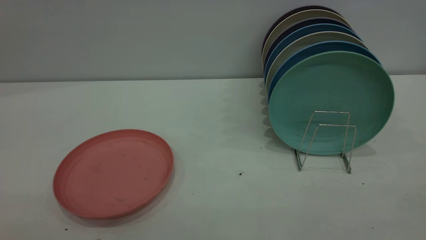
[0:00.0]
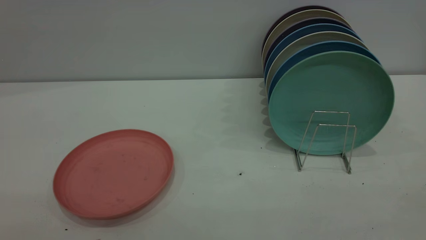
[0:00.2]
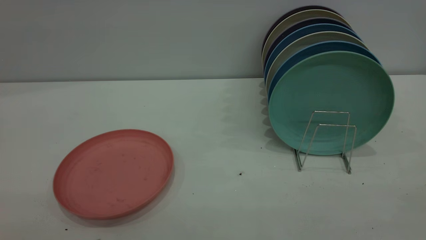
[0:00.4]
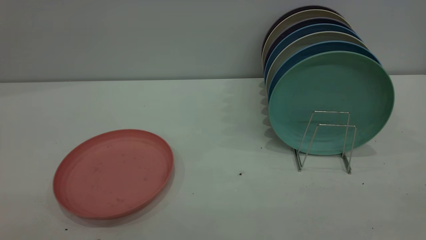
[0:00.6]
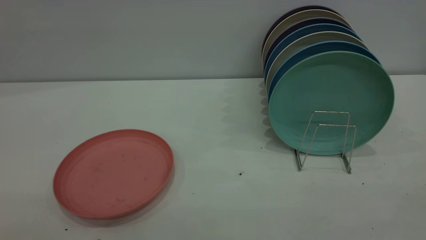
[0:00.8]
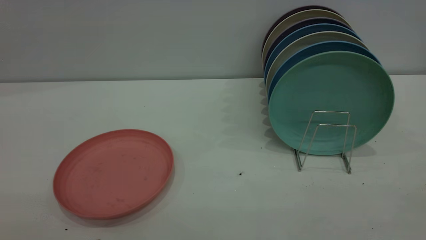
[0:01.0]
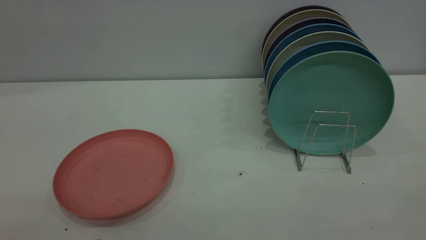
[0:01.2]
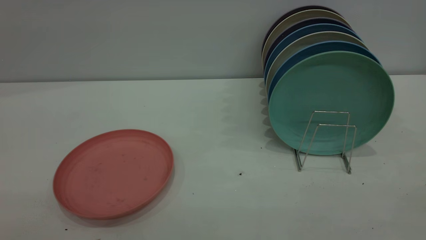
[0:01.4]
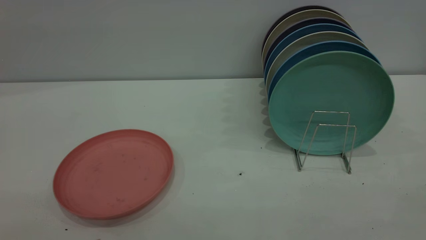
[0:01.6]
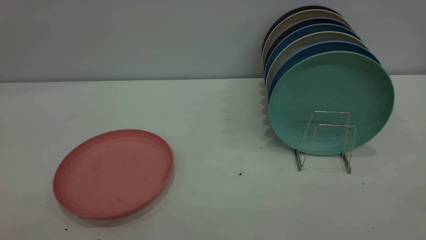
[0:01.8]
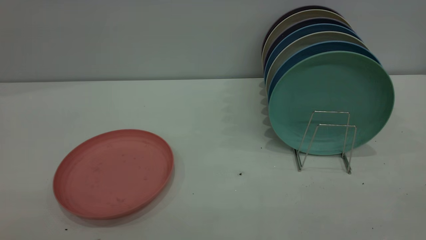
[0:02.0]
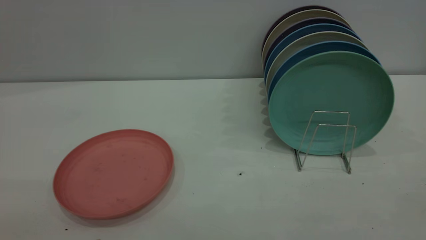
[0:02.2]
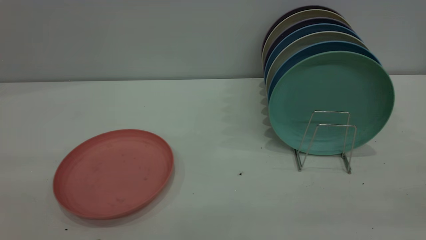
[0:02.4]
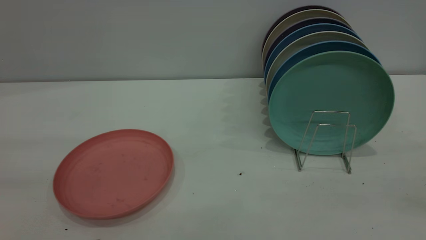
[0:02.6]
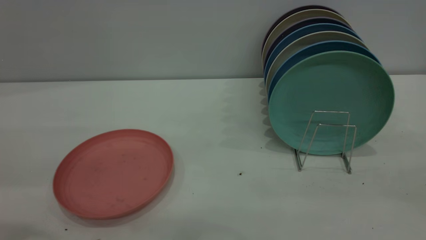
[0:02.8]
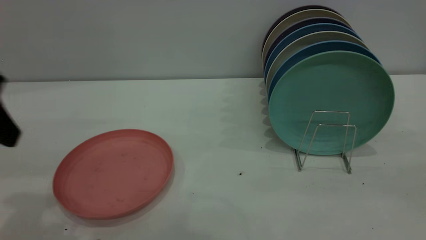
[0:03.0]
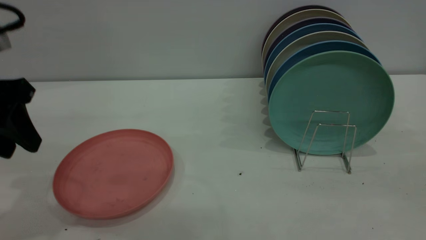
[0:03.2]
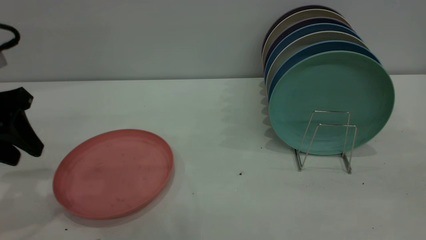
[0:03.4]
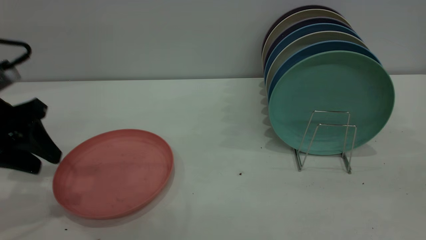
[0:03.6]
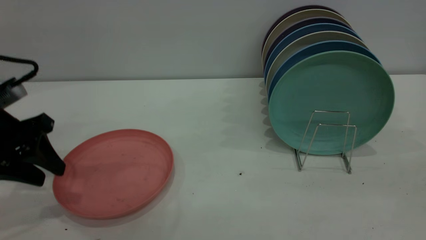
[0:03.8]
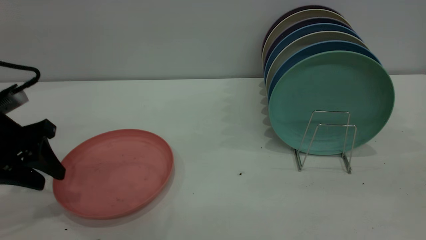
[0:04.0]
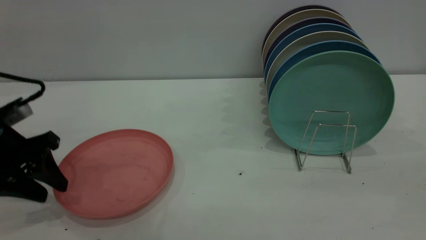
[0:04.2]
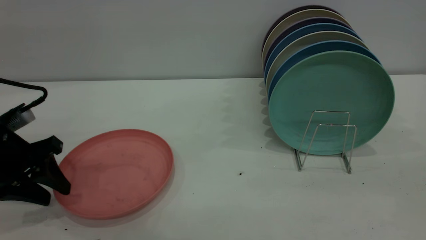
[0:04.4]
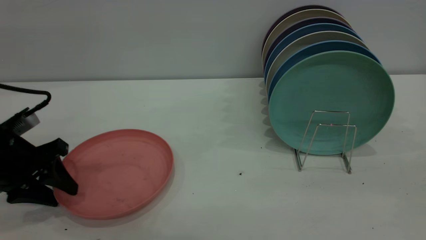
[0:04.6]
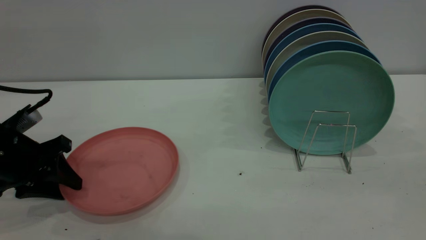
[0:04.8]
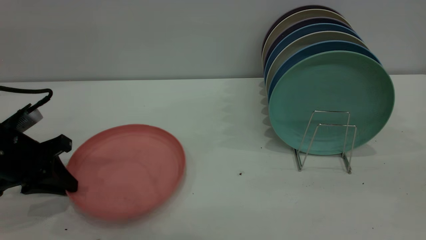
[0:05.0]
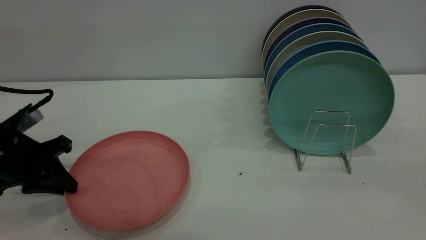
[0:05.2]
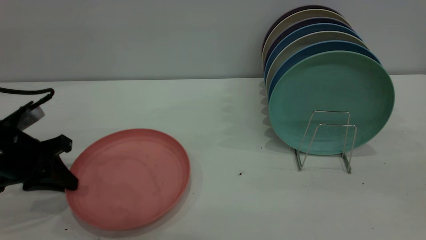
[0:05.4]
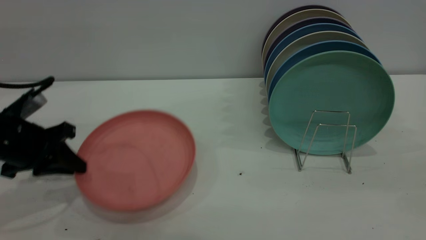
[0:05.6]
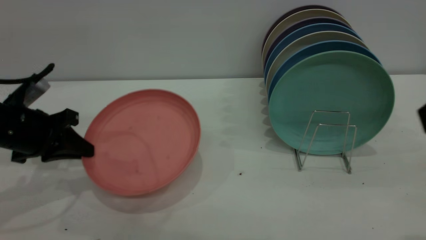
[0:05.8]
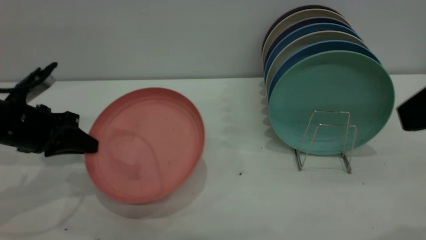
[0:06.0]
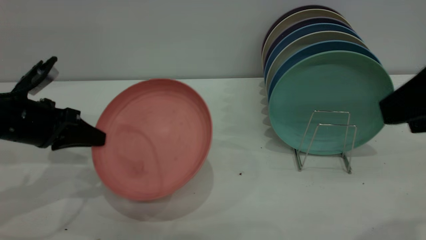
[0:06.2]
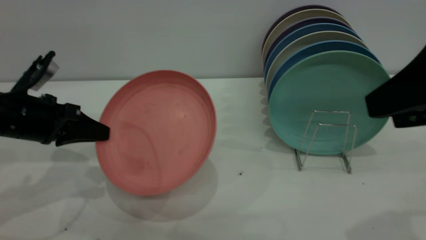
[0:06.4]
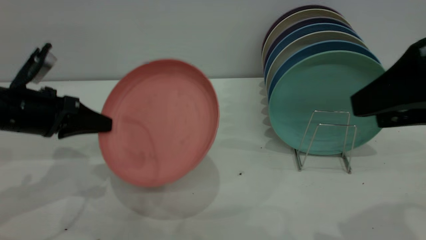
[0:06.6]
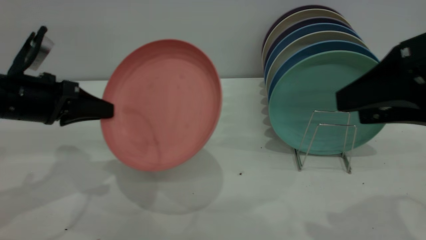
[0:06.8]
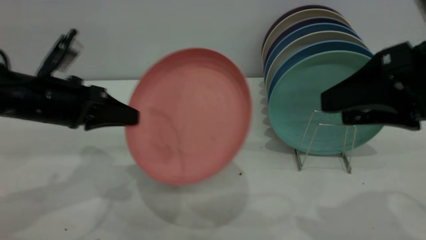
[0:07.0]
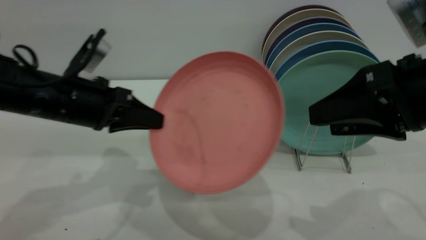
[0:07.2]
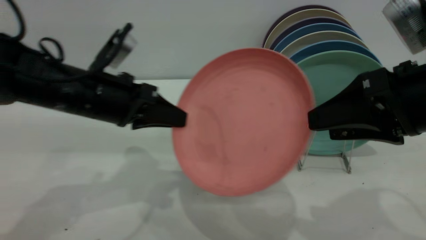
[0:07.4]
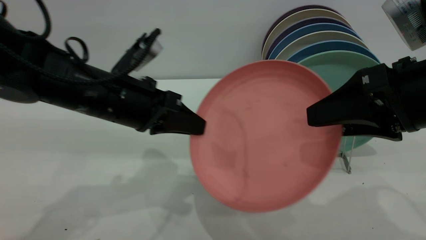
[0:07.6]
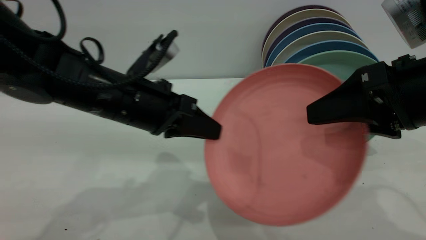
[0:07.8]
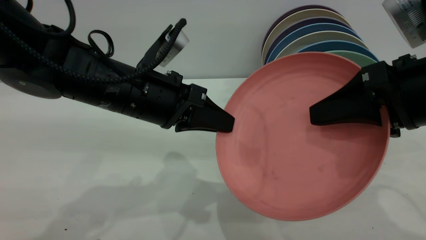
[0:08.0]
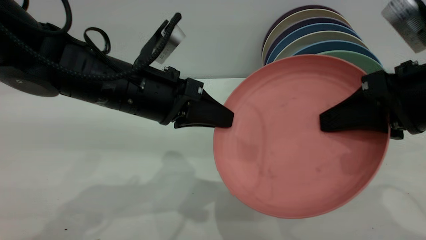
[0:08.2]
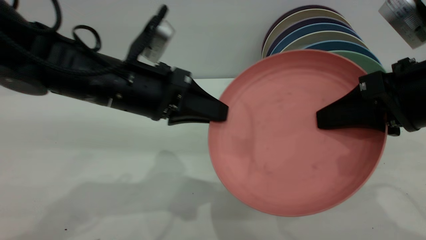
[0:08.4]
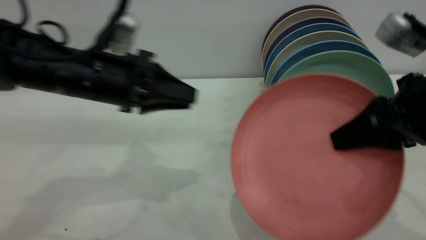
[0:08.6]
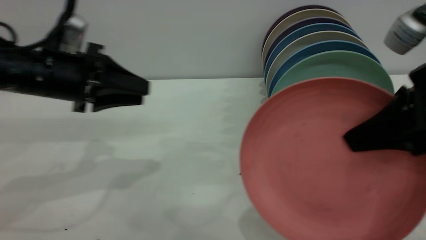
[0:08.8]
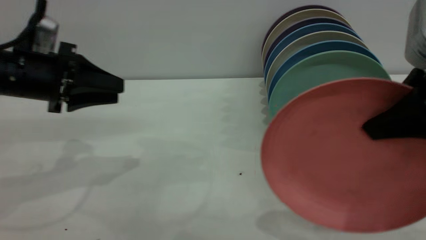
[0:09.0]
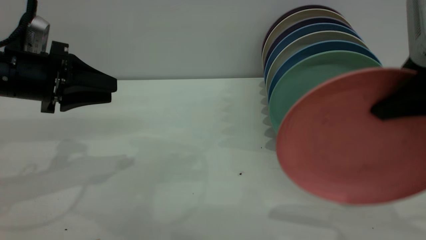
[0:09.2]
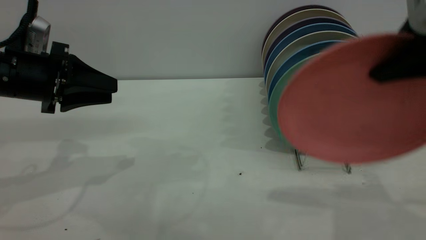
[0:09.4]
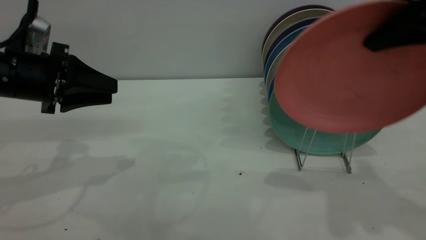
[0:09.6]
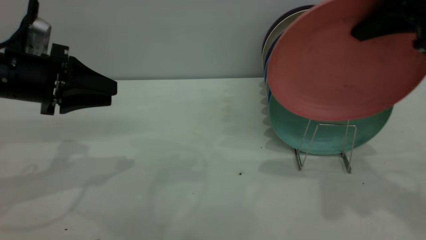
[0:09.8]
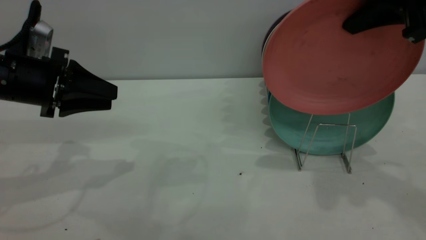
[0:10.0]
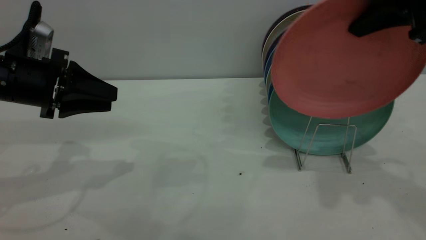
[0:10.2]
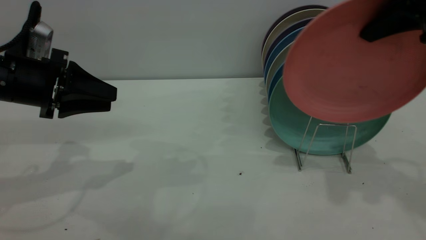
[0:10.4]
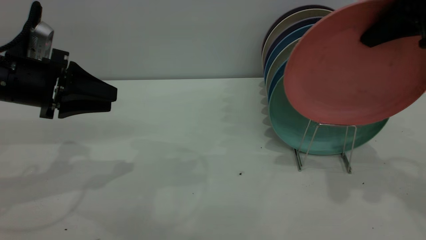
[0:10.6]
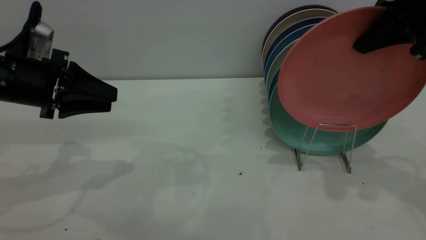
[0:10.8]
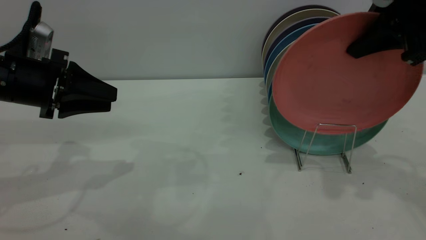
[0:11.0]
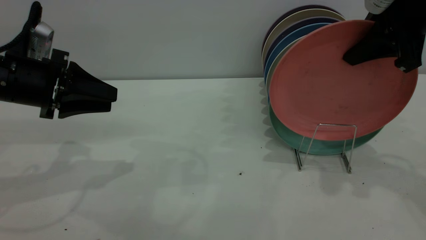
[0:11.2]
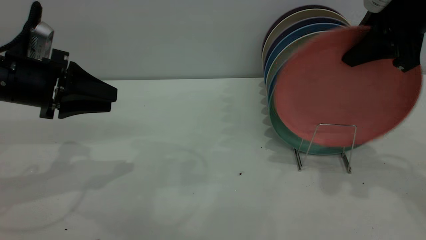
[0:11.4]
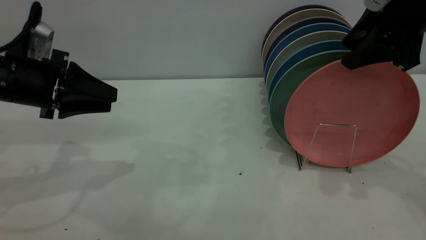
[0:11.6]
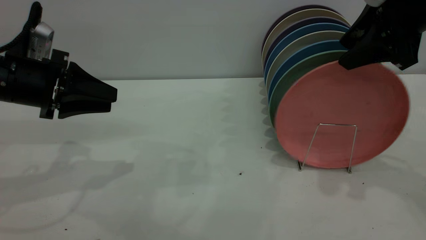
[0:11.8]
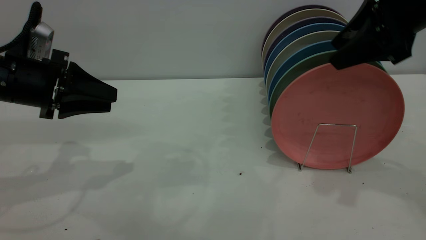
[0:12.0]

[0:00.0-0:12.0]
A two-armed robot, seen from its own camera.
Task of the whole recording: put the plate on the plate rack.
Step, 0:00.0 to 0:05.4: Pick up the plate with the left gripper.
Step, 0:05.8 to 0:07.6: Pass the plate from the left gripper to the right gripper.
0:00.0 to 0:01.6: Both grippers stay put.
0:01.6 to 0:03.0: The left gripper is displaced forward by roughly 25 cm.
0:03.0 to 0:04.4: The left gripper heads downward, covering about 15 cm.
0:04.4 to 0:06.0: The right gripper ends up approximately 5 cm from where it was. The left gripper closes.
0:06.0 to 0:07.6: The right gripper shifts about 10 cm downward and forward; the left gripper is displaced to the right by roughly 15 cm.
0:07.6 to 0:09.0: The left gripper heads to the left, covering about 15 cm, and opens its fingers; the right gripper closes up.
0:09.0 to 0:10.4: The right gripper shifts roughly 15 cm forward and upward.
0:10.4 to 0:12.0: The right gripper opens.

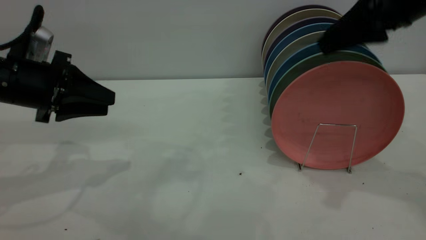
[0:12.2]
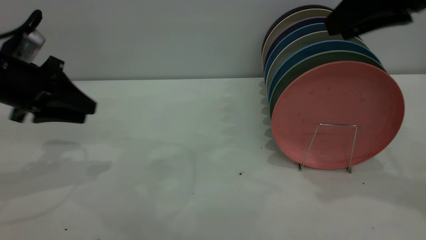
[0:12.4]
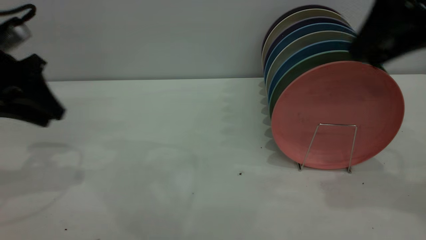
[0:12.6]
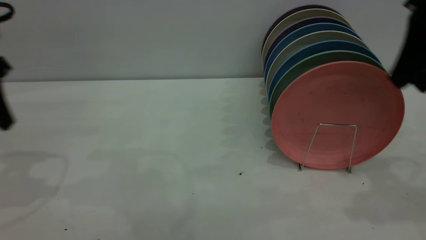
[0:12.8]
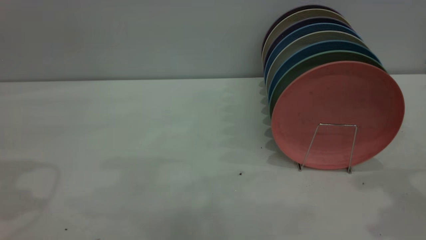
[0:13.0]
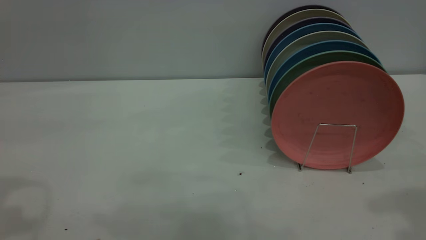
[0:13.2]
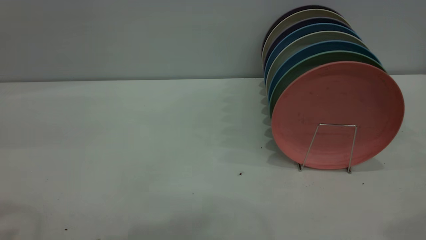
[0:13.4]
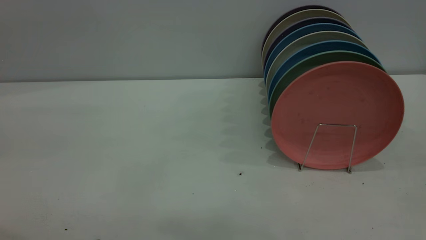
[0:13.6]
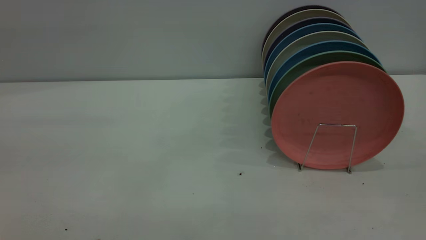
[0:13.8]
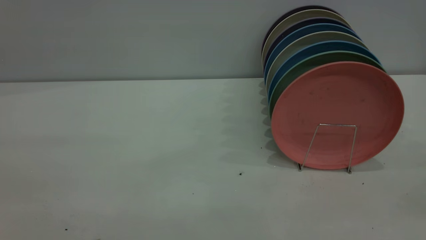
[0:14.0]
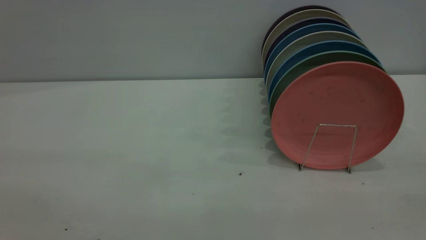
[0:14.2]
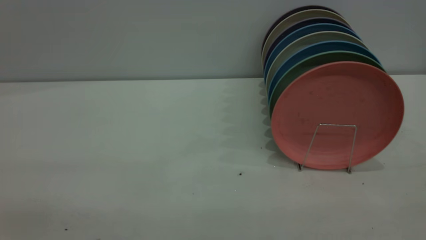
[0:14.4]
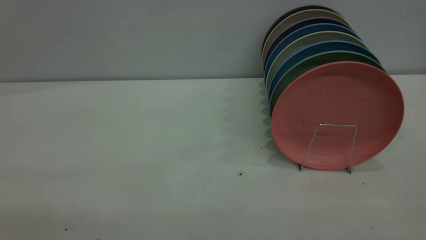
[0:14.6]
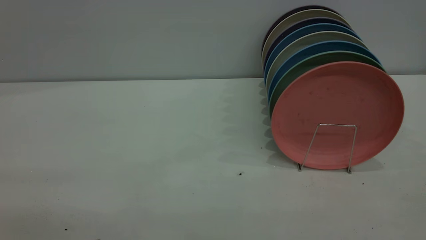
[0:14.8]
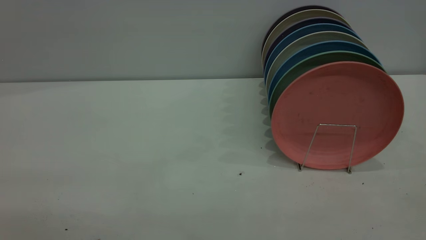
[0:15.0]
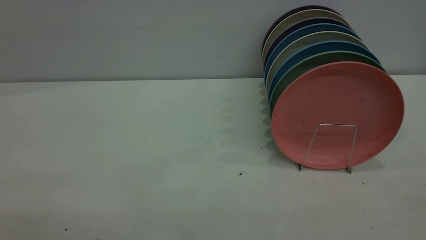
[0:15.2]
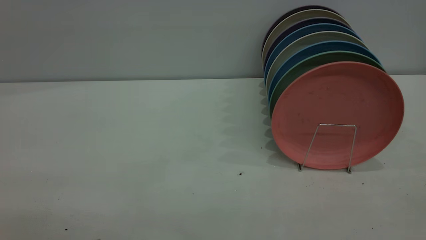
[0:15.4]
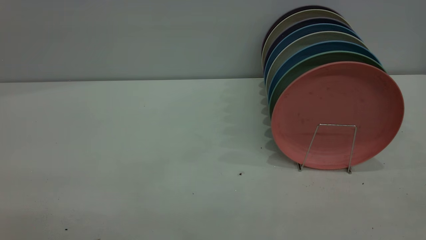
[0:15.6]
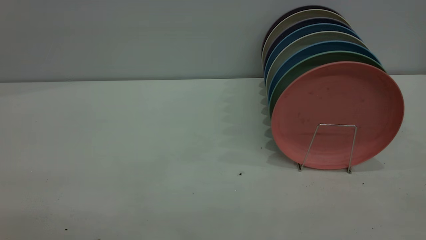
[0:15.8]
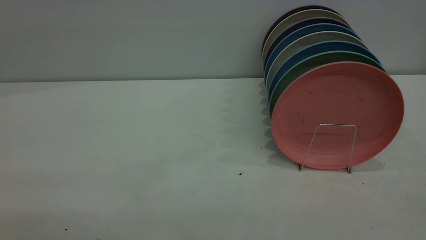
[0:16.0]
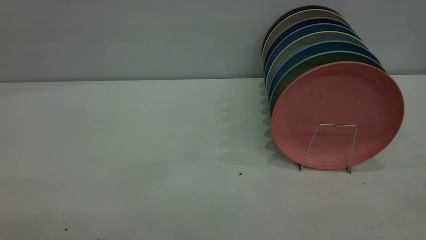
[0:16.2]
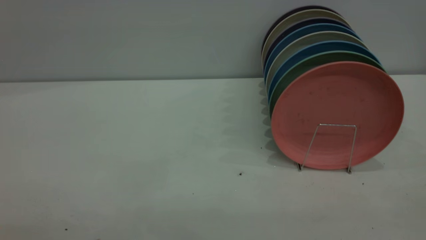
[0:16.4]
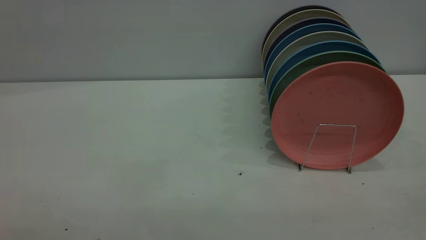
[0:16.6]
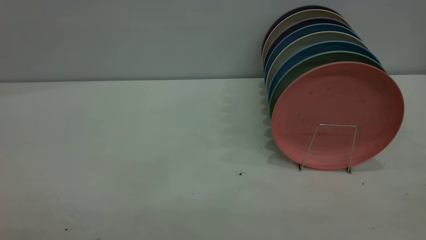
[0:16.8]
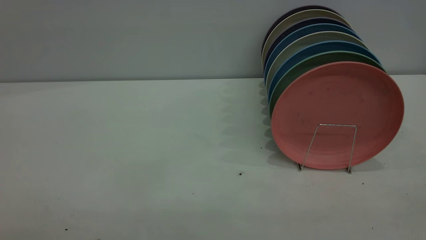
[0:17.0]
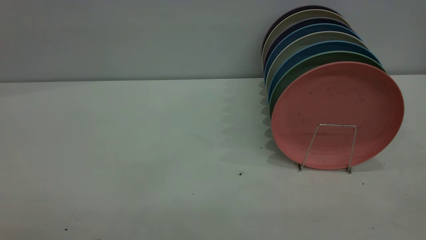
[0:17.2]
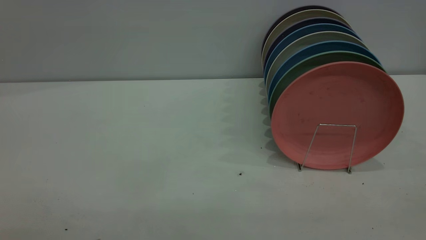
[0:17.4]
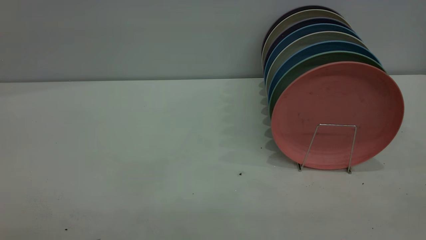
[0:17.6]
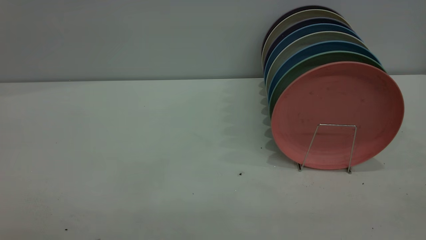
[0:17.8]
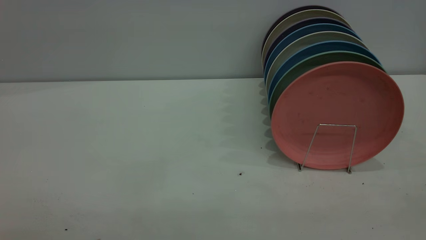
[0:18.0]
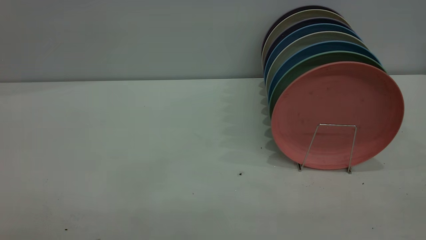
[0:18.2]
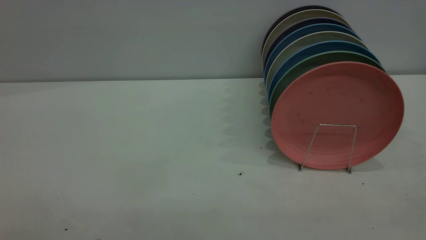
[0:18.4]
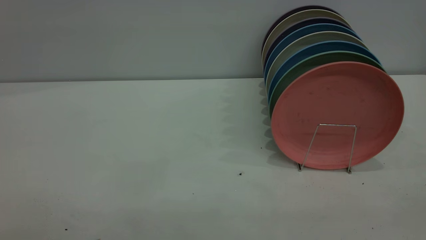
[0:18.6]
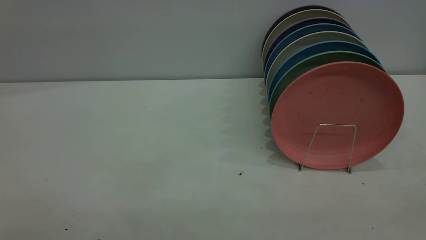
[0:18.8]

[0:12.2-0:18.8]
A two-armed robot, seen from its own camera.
Task of the whole recording: put the plate on the plate rack.
0:12.2 to 0:13.8: The right gripper shifts roughly 25 cm backward. The left gripper is displaced upward and backward by about 30 cm.
